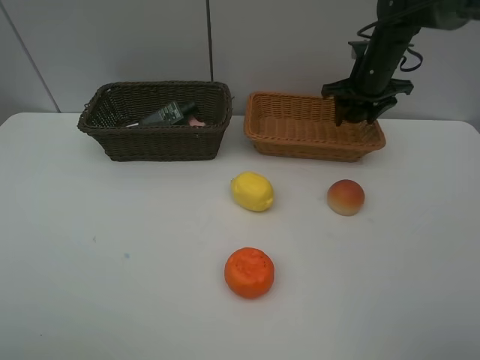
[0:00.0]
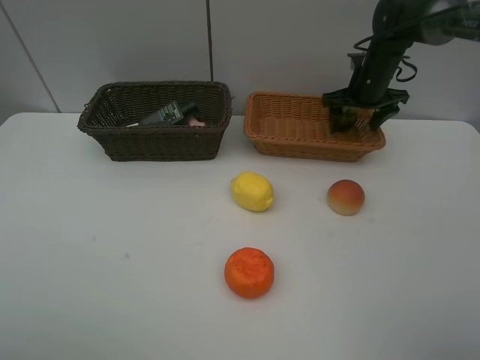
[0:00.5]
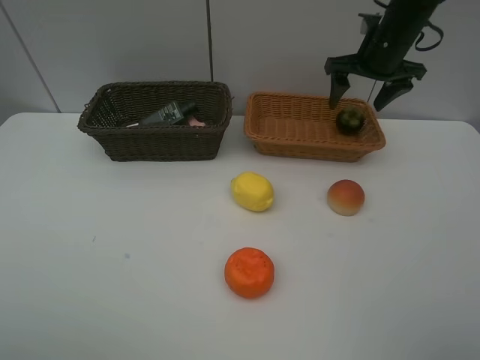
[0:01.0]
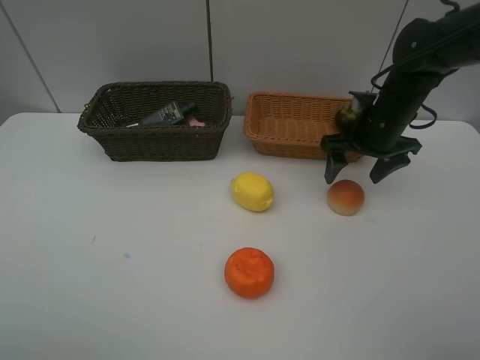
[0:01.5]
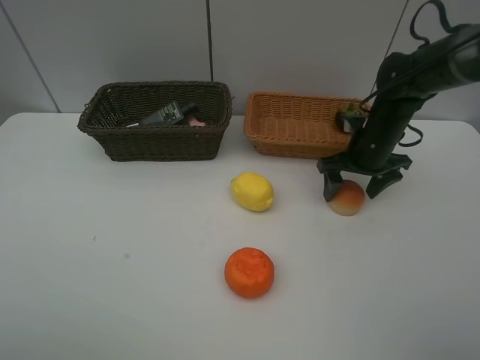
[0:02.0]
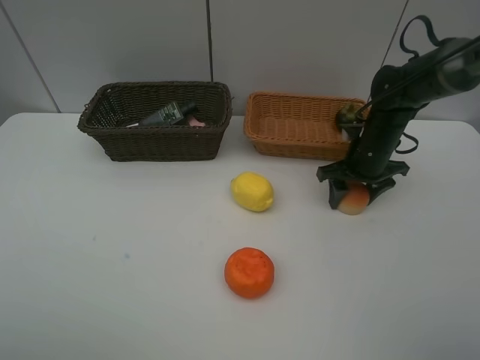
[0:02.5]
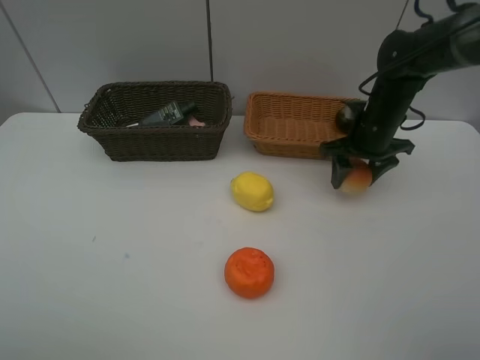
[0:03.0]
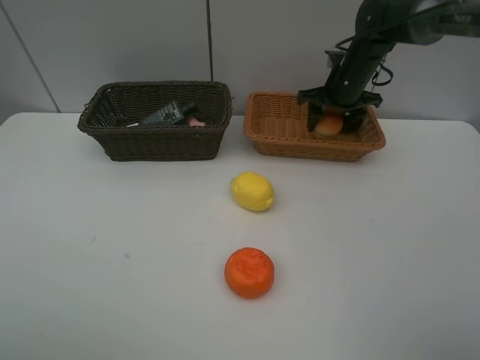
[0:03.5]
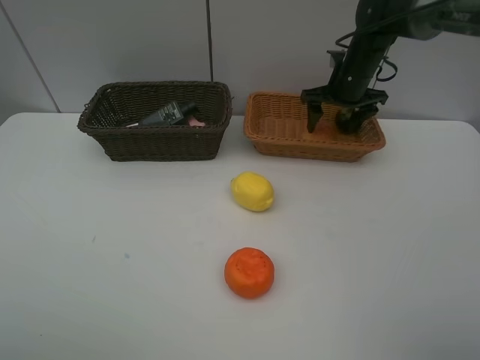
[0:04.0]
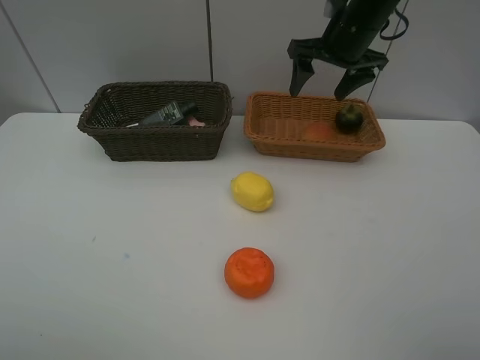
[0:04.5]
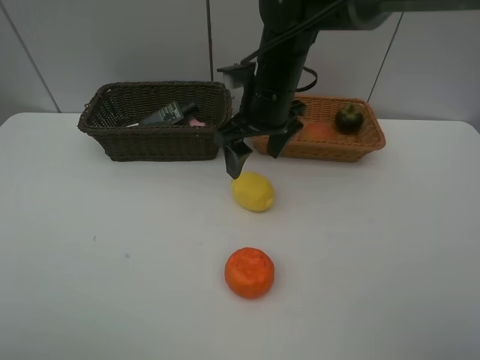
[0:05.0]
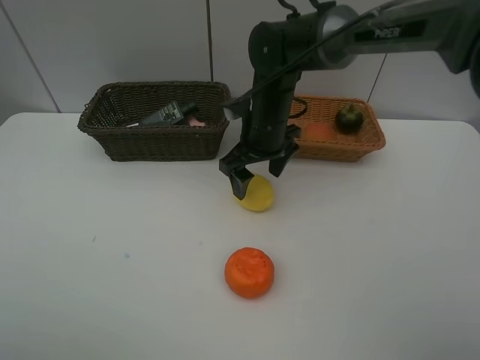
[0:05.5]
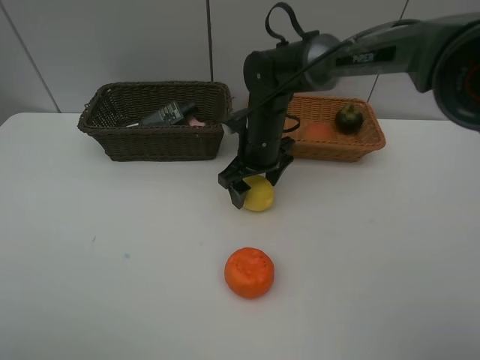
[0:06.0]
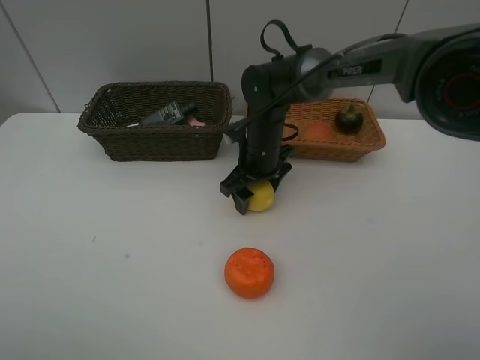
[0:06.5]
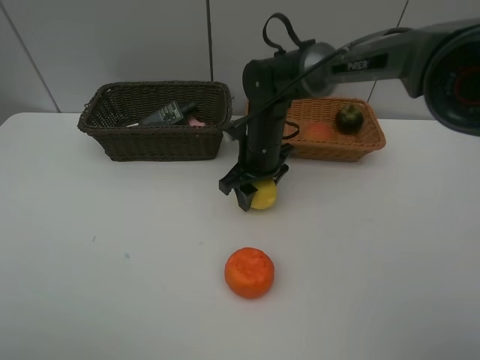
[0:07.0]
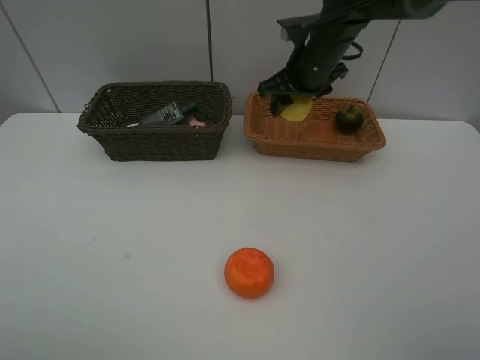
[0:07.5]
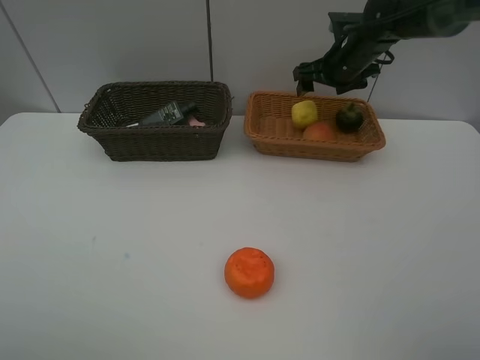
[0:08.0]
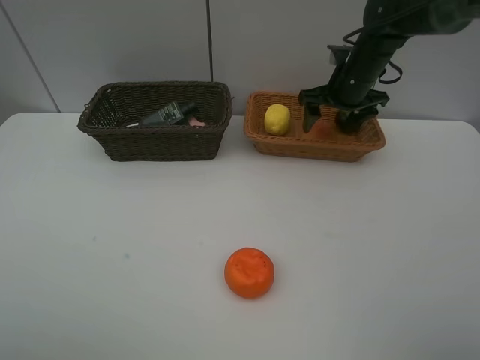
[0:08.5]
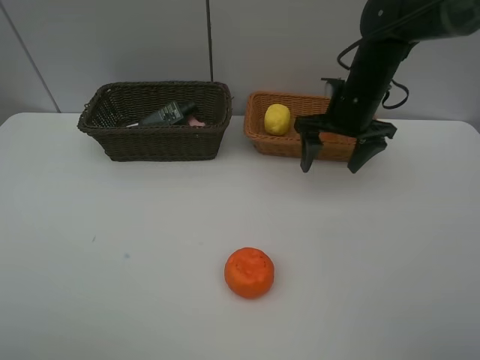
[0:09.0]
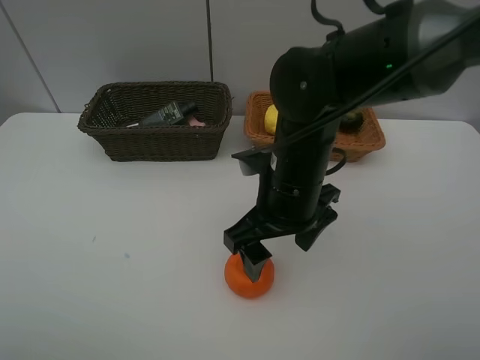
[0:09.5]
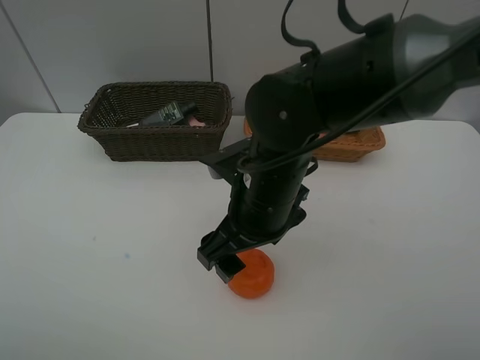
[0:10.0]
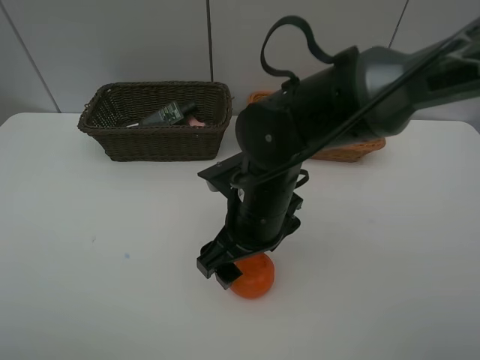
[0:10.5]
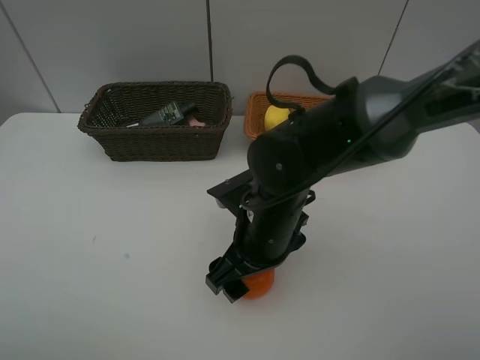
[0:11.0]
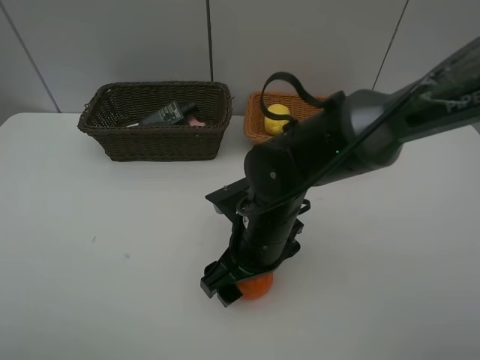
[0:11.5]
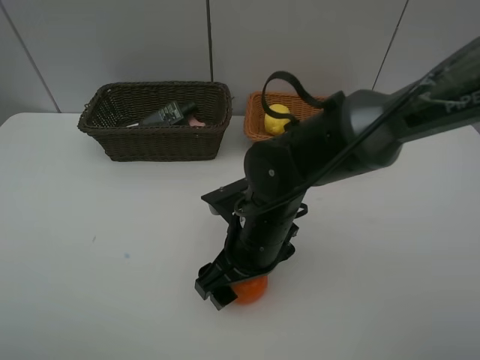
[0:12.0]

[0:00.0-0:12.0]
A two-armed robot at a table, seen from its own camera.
Task of the whole recording: Place multiple objects separately in different baskets.
Step, 0:00.0 to 0:01.0: Place the mangosteen in the light basket with right gripper.
Step, 0:01.5 to 0:03.0: Pick up egg yolk pastry with right gripper.
Step, 0:03.5 to 0:04.0: Place the egg yolk pastry in the light basket with right gripper.
Step, 0:04.5 to 0:07.0: Pick up the lemon with right gripper.
Step, 0:07.5 to 0:08.0: Place the lemon in the light basket with right gripper.
0:00.0 to 0:02.0: The right gripper travels backward and downward by some 15 cm, and opens up.
0:02.0 to 0:04.0: The right gripper is displaced forward and upward by about 15 cm, and closes, then opens again.
0:04.0 to 0:06.0: The right gripper travels to the left, backward and downward by approximately 20 cm.
0:06.0 to 0:08.0: The right gripper shifts roughly 20 cm to the right, forward and upward, and closes, then reopens.
0:08.0 to 0:10.0: The right gripper heads backward and to the left, covering about 30 cm.
0:10.0 to 0:12.0: The right gripper goes roughly 5 cm downward.

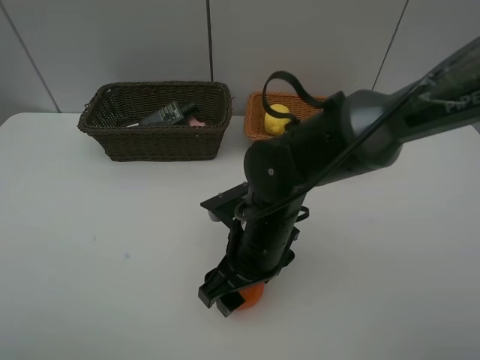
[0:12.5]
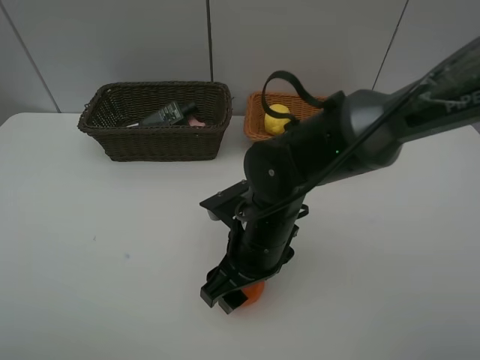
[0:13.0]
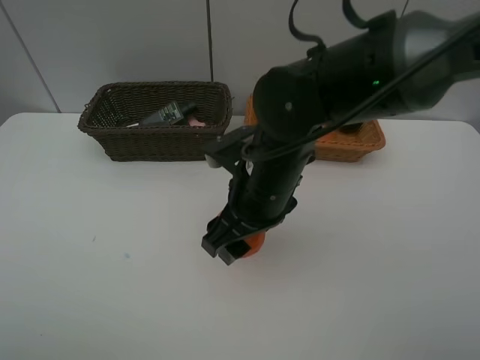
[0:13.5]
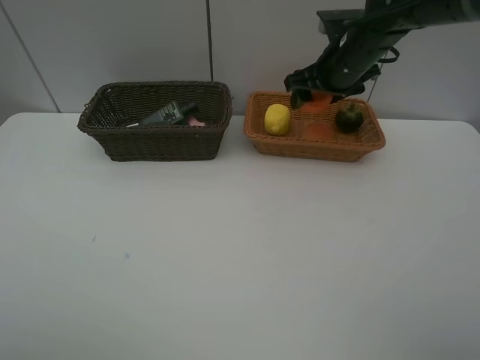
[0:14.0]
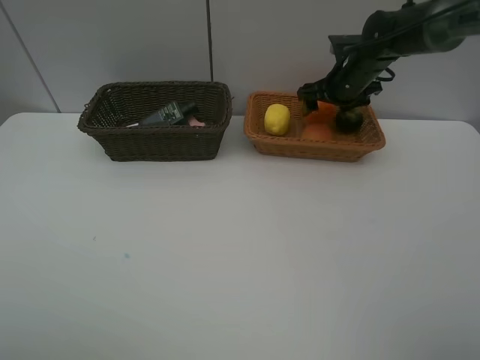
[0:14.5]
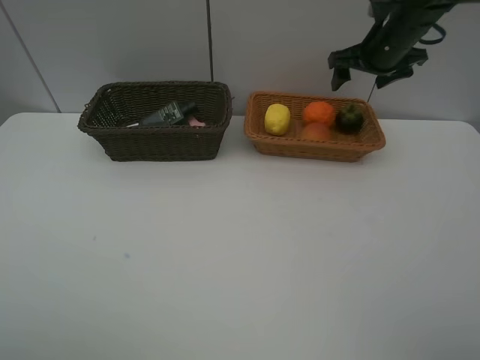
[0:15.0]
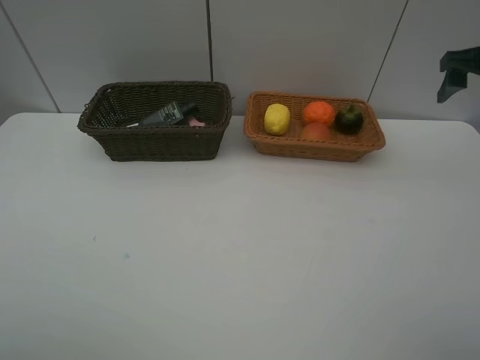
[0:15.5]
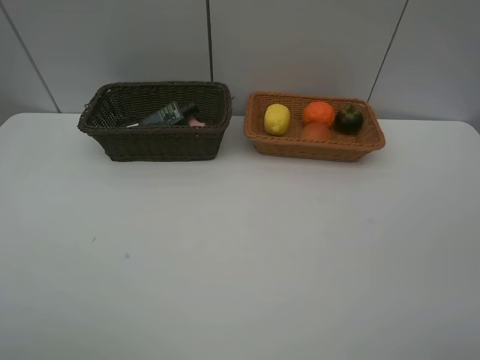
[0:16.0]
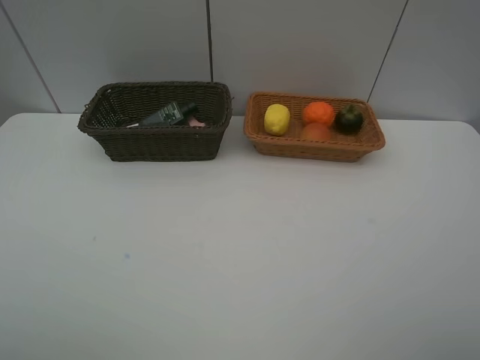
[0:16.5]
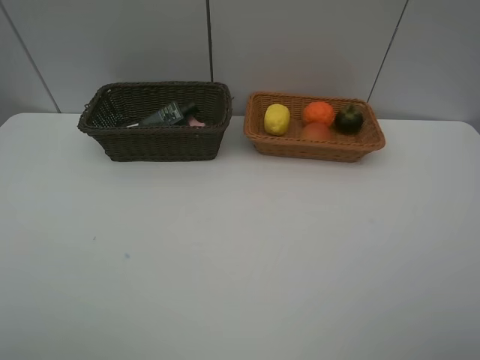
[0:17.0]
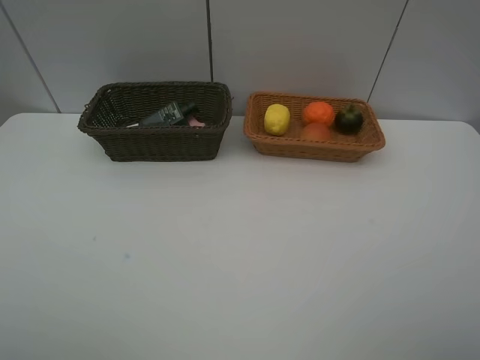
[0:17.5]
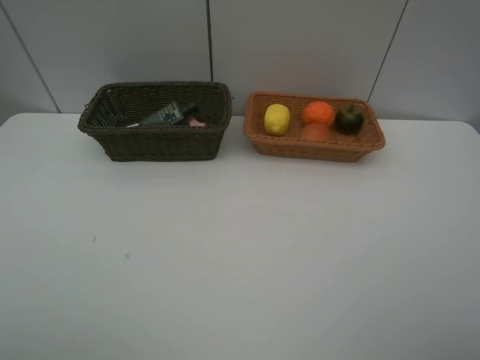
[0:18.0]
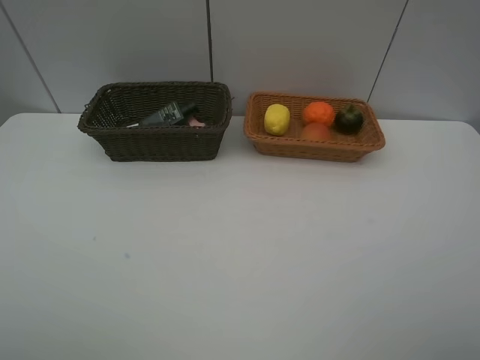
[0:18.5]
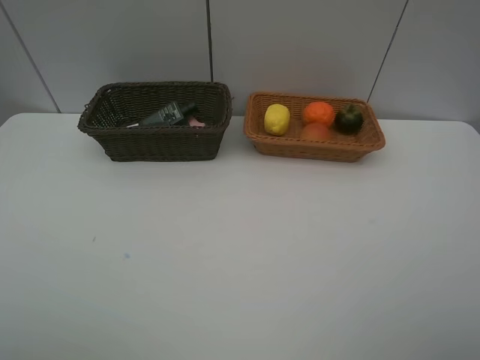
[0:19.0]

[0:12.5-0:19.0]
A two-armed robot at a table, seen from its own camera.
Task of the whole recording: Place multiple objects separately in different baskets.
Step, 0:13.5 to 0:14.5: Place the orange in the light basket with right gripper.
0:12.5 to 0:14.5: The right gripper moves forward and to the right, approximately 30 cm.
0:14.5 to 0:17.0: The right gripper shifts approximately 50 cm backward.
0:17.0 to 0:19.0: The two grippers keep their place.
